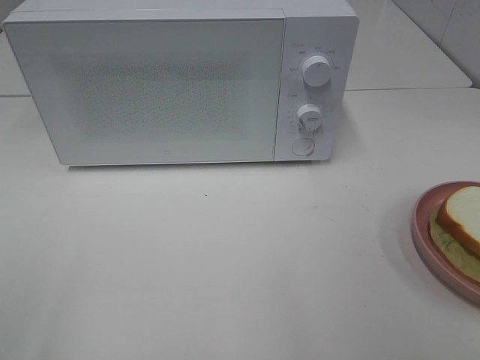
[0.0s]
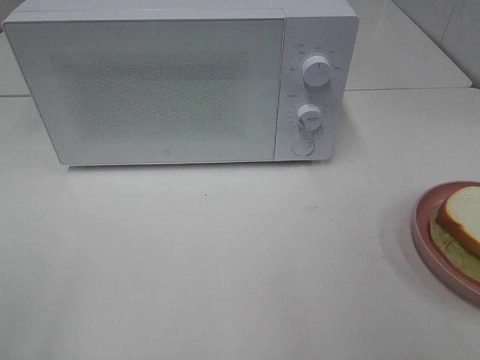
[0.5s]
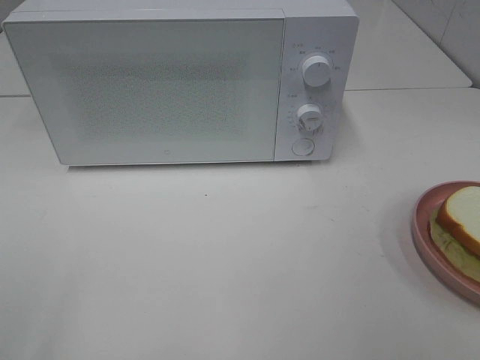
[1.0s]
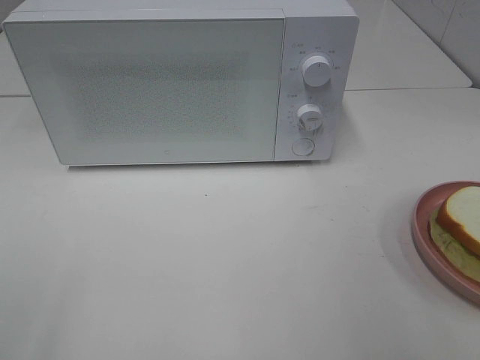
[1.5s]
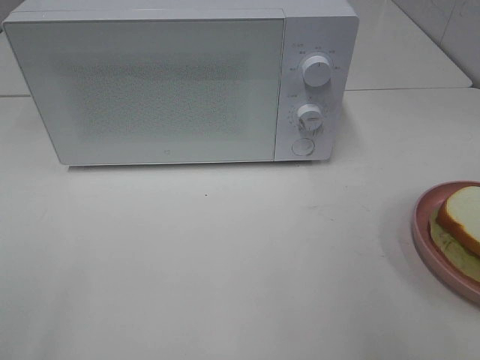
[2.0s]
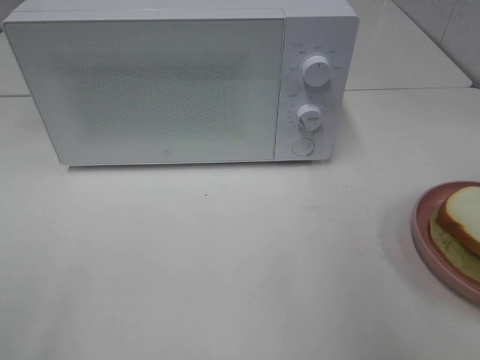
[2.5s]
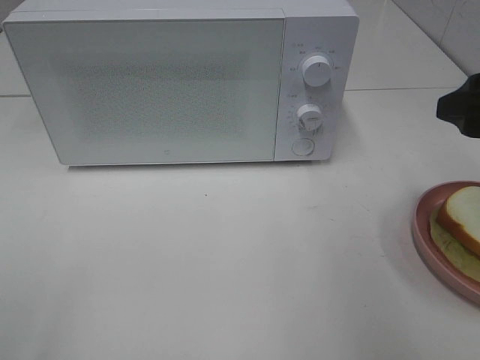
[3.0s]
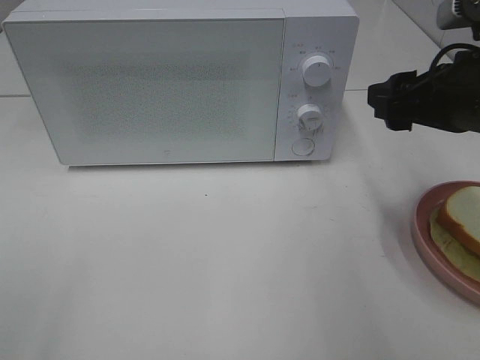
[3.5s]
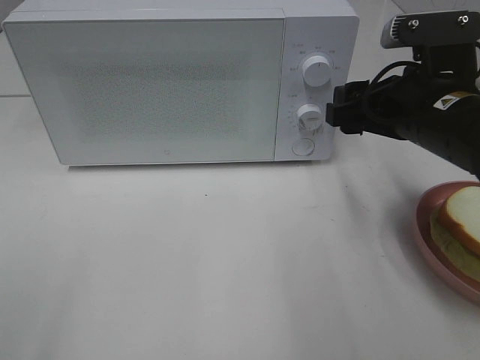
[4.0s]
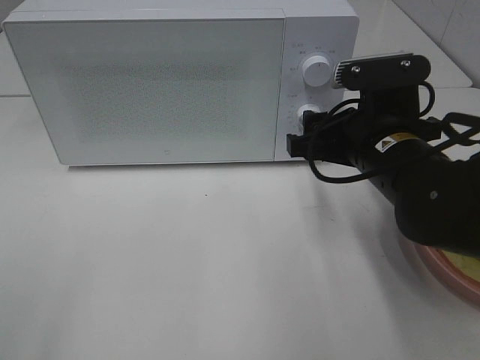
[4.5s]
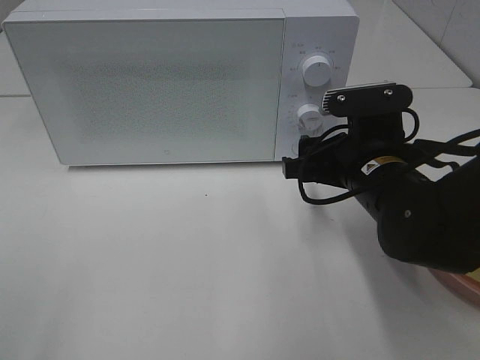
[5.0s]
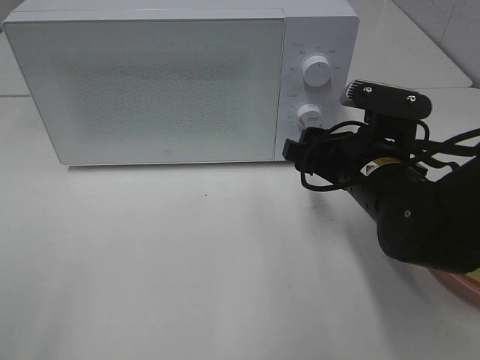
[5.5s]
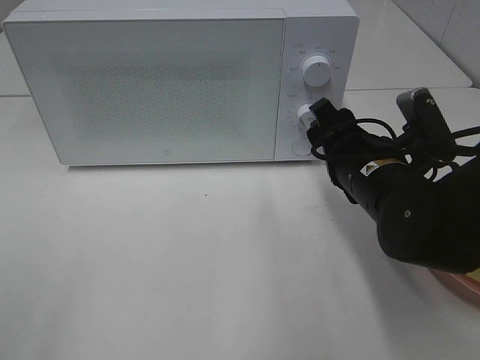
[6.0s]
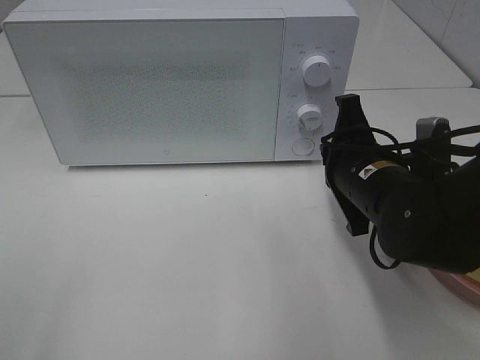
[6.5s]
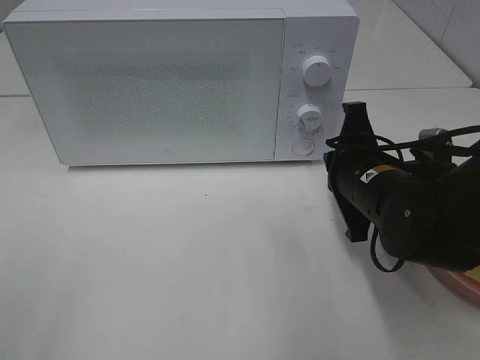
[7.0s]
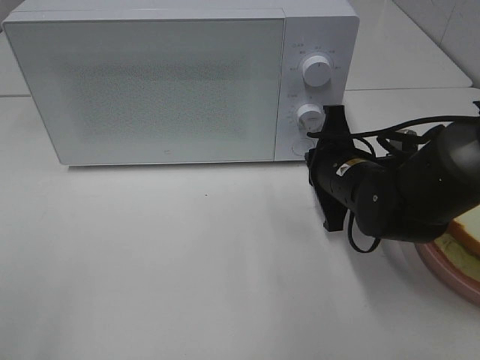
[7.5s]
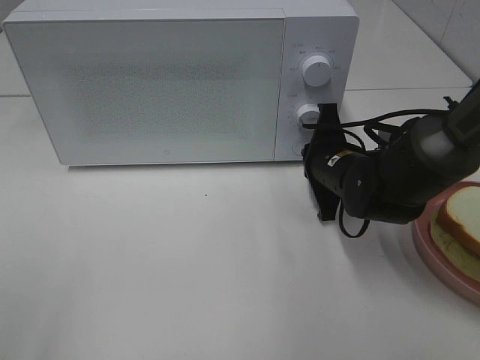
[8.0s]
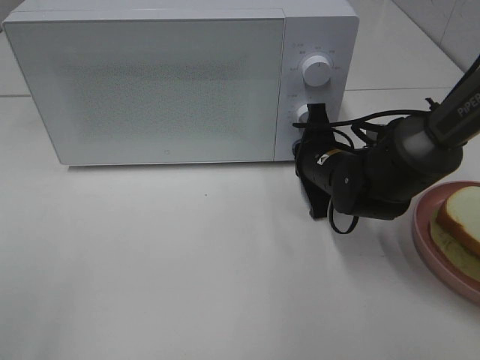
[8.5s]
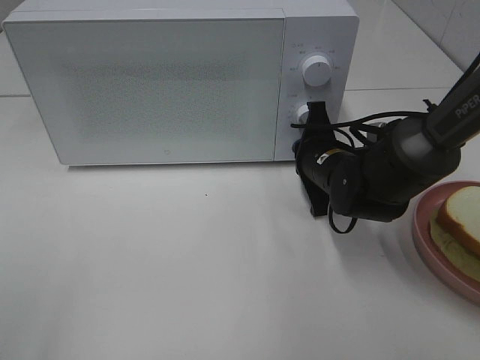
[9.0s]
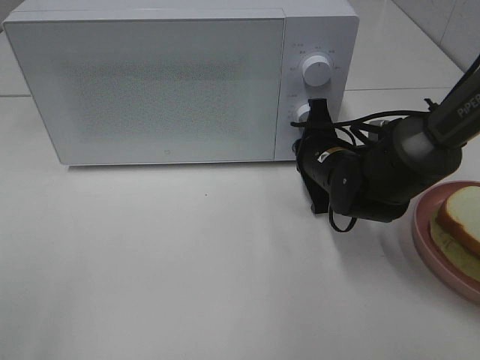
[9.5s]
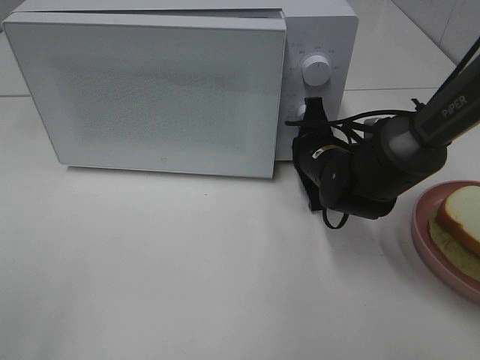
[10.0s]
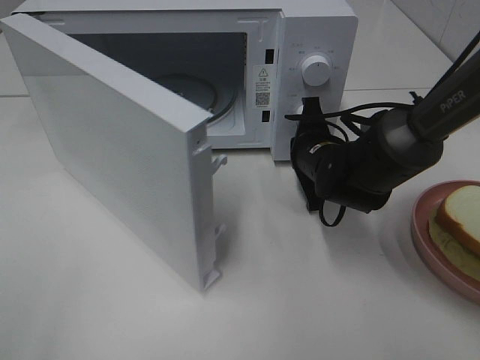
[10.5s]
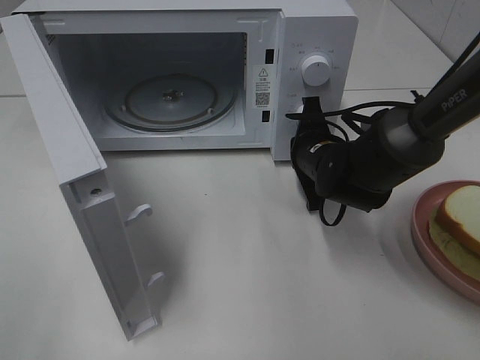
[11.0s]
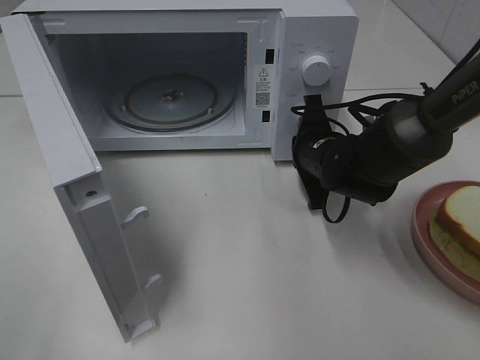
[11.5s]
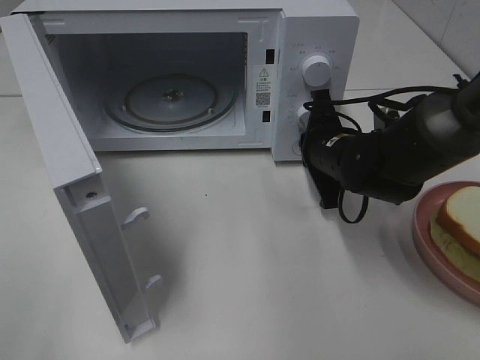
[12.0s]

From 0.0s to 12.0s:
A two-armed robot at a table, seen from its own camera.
Task of the whole recording: Heat Sandwich.
From 2.0s to 4.0s: The right gripper shifts roughly 20 cm forward, to the left and downward.
From 4.0s to 6.0s: The right gripper goes roughly 5 cm downward.
From 6.0s to 8.0s: The right gripper shifts some 10 cm forward and downward, and closes up.
From 8.0s to 10.0s: There are only small adjustments of the grippers.

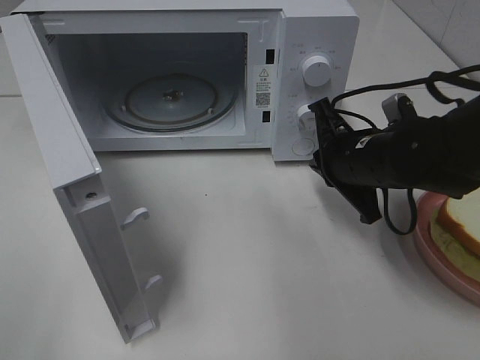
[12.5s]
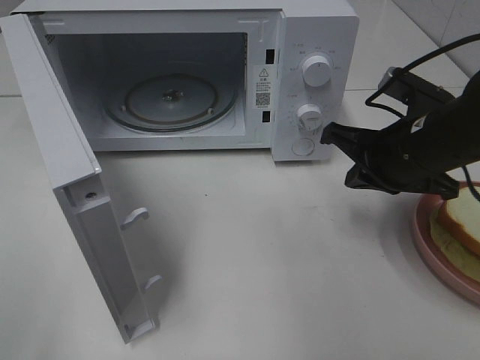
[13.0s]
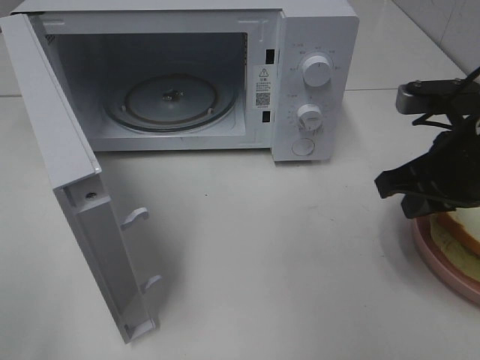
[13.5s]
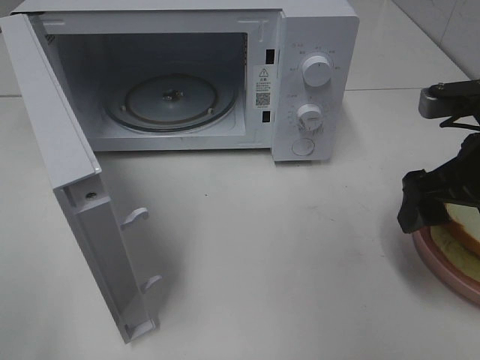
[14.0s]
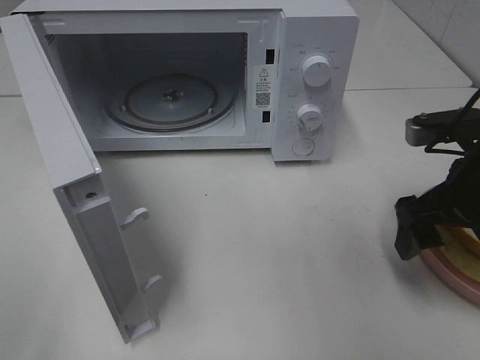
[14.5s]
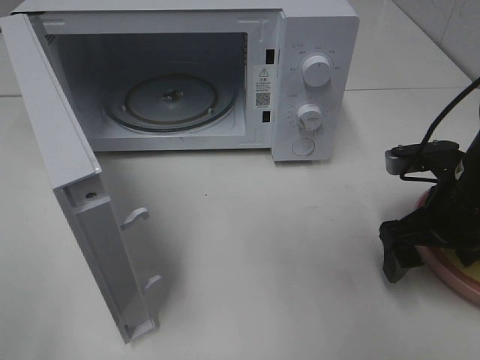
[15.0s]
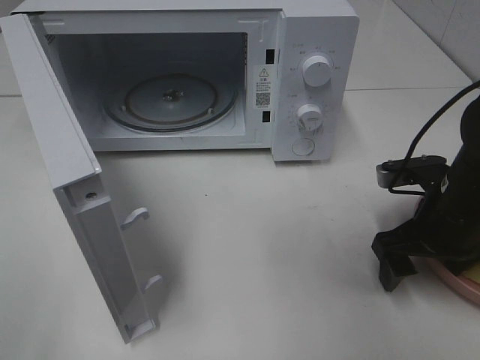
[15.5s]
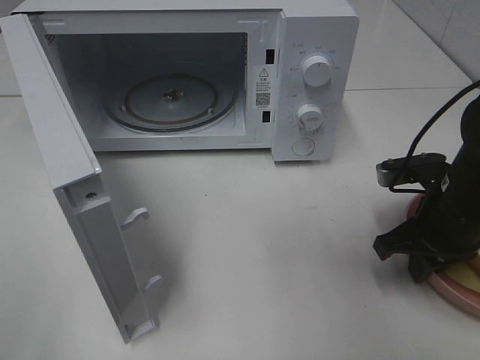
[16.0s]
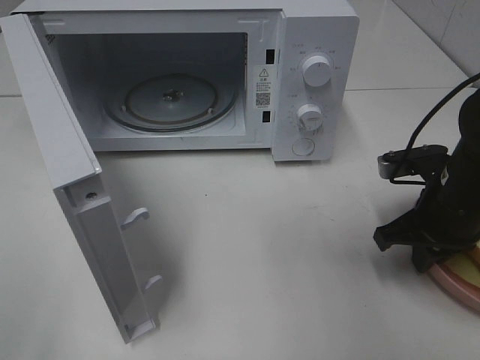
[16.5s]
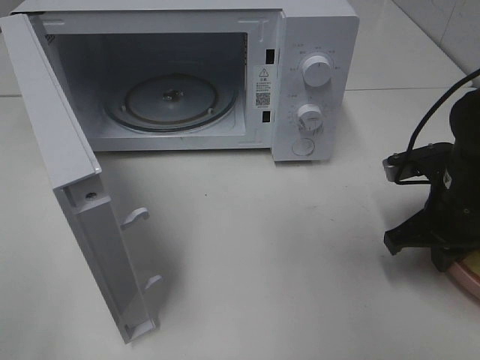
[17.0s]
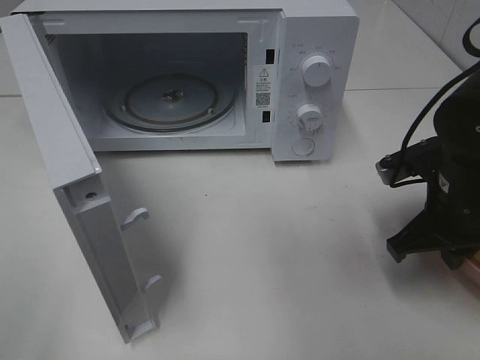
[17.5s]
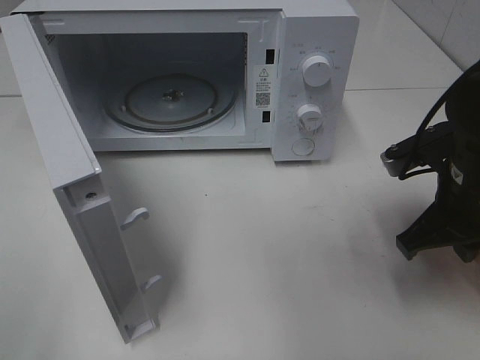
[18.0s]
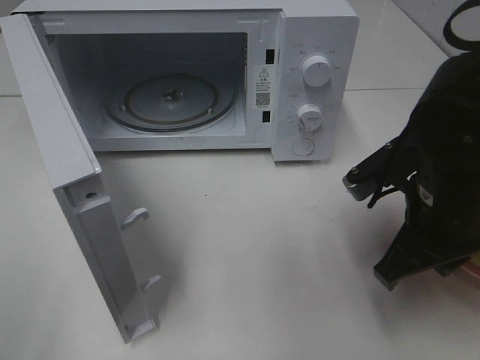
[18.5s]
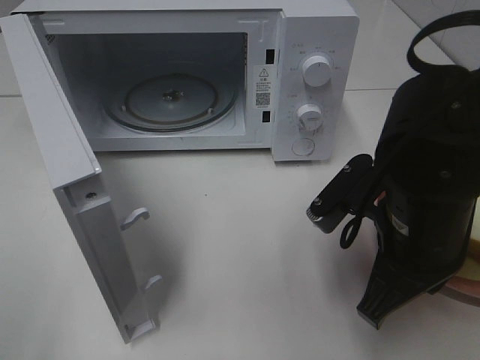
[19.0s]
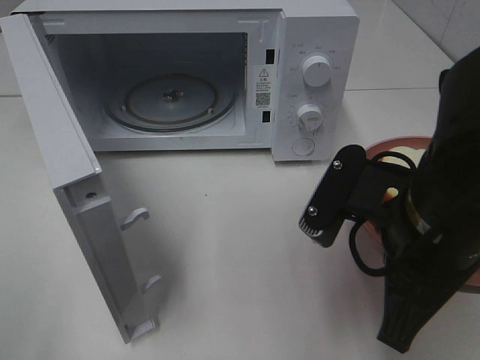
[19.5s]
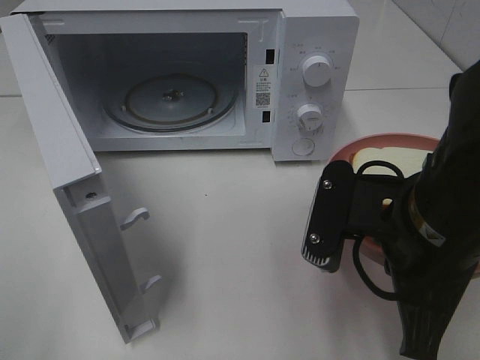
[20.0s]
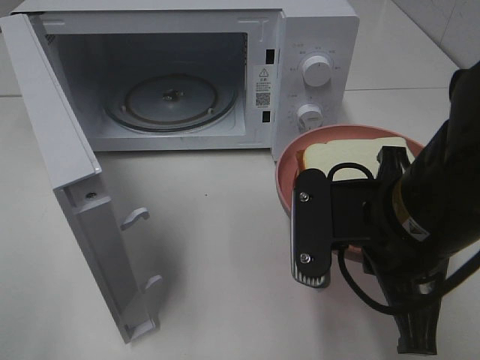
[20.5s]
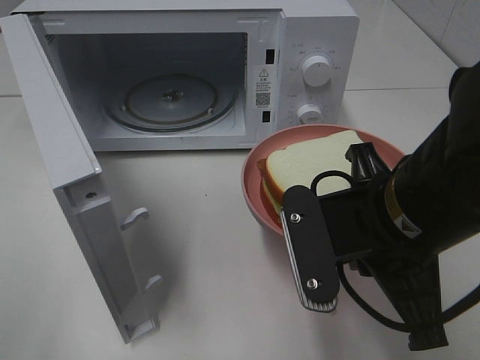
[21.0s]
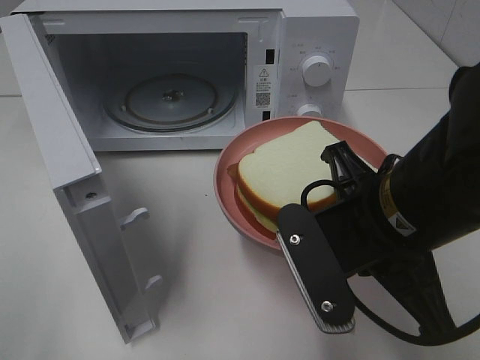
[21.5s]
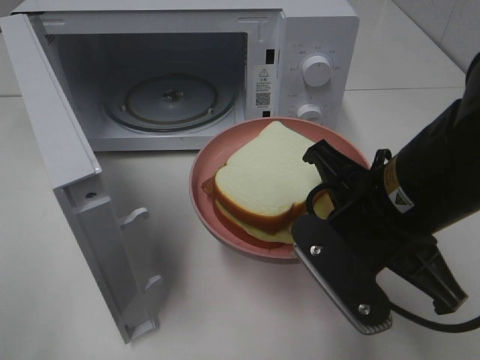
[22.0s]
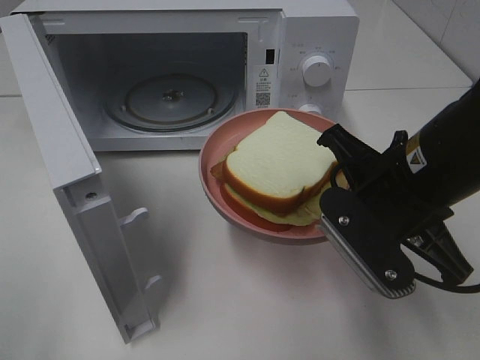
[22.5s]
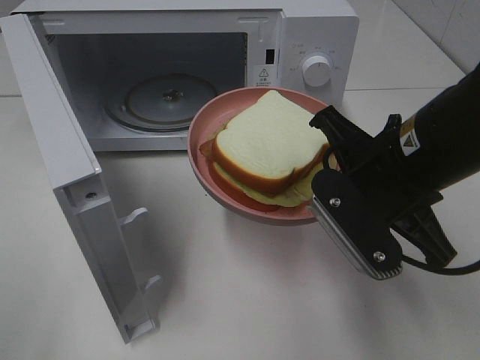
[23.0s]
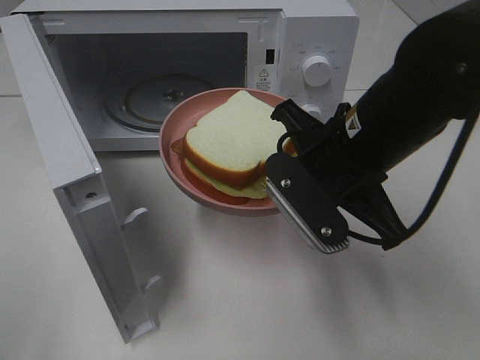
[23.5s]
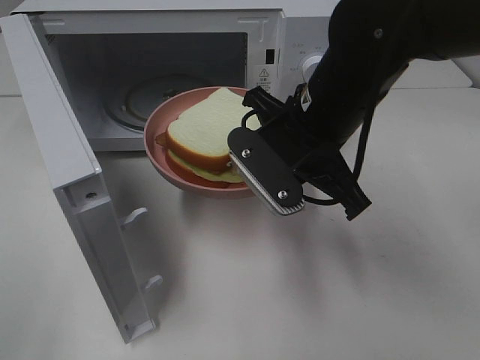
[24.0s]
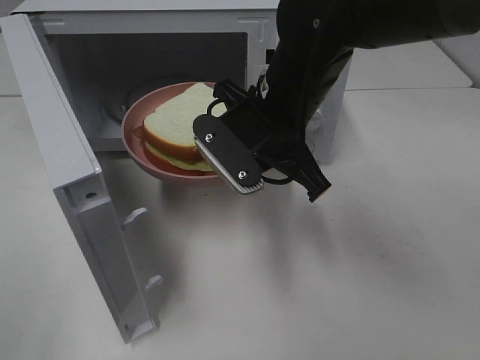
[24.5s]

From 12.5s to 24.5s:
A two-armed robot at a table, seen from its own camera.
Task of the whole recording: Heat Sandwich.
Step, from 12.5s to 15.5s: Right hand: grab the plate with the sandwich.
From 12.5s to 14.5s: The right gripper goes approximately 10 cm to the right and backward, and opens up.
From 14.5s to 16.5s: The right gripper shifts some 5 cm downward, and closes.
From 16.5s to 18.5s: The right gripper shifts approximately 5 cm to the left.
From 18.5s to 20.5s: The right gripper travels to the left and backward by approximately 10 cm.
From 22.5s to 24.5s: The right gripper shifts roughly 15 cm to the left and forward.

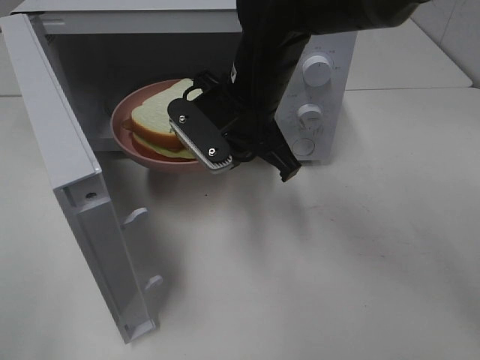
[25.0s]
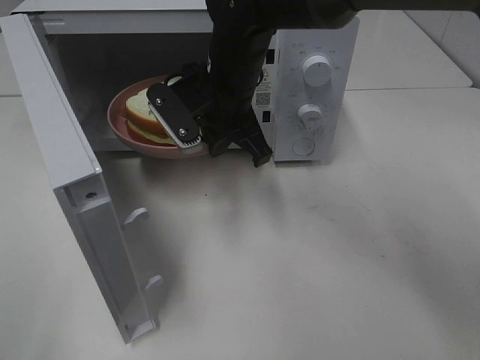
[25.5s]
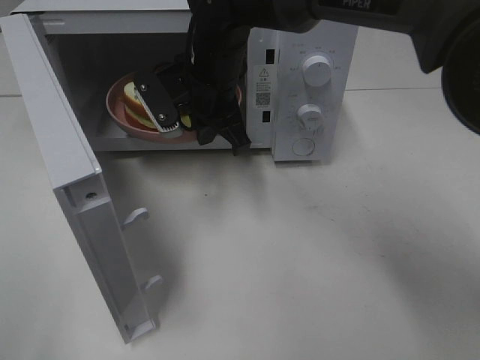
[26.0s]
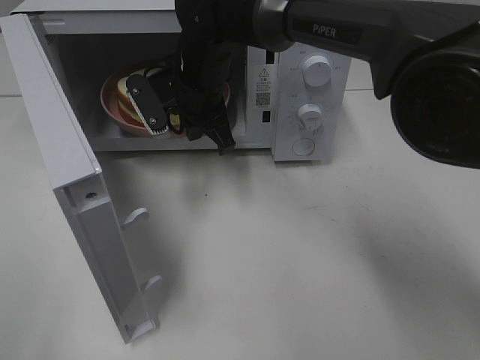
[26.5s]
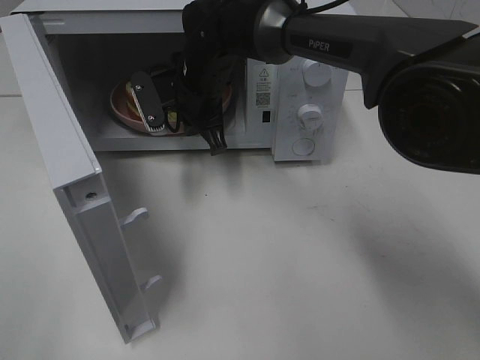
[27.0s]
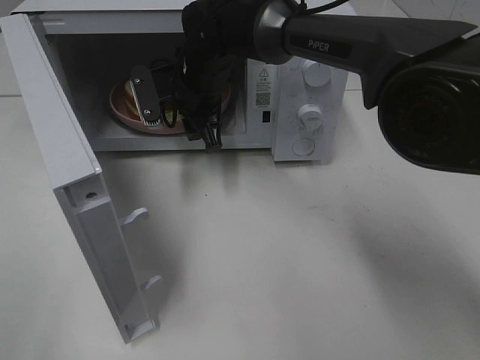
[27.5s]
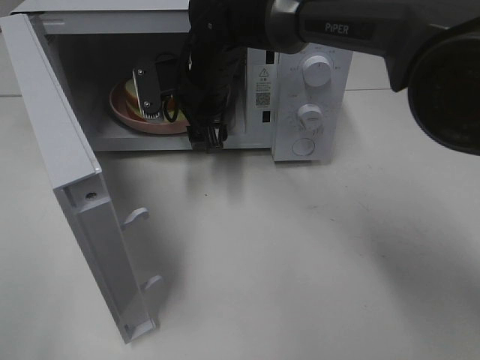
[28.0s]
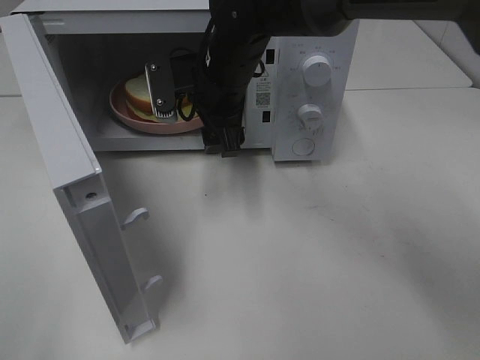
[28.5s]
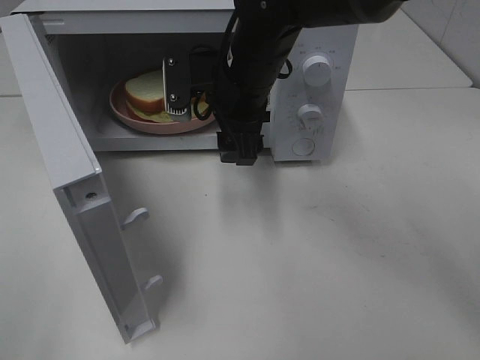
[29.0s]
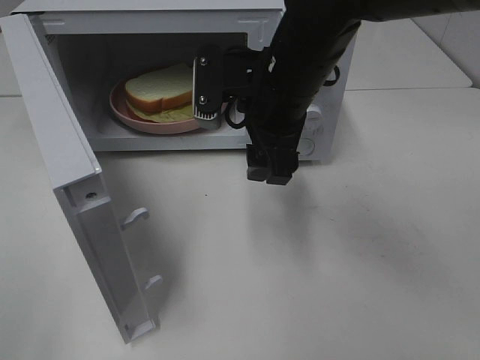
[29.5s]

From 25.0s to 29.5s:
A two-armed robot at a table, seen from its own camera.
Task of the whole recording: Heat Sandwich.
Step, from 25.0s to 28.5s: Right hand: place the plate in the microwave.
From 25.0s to 27.0s: The right gripper heads forward and to the left, covering approximately 10 cm.
From 27.0s to 29.5s: The right gripper travels backward, to the right and upward by some 15 cm, and opens up.
